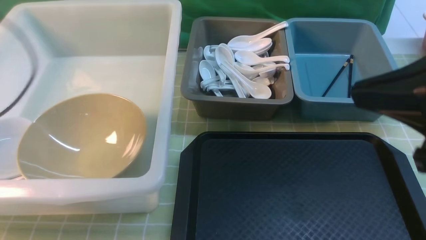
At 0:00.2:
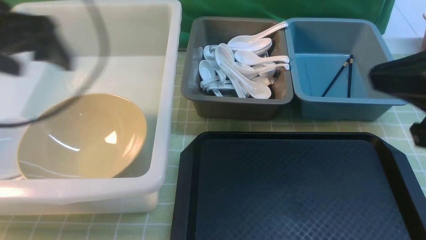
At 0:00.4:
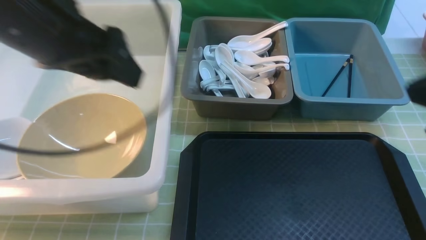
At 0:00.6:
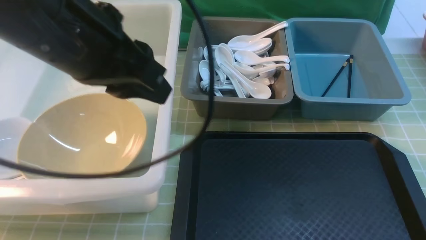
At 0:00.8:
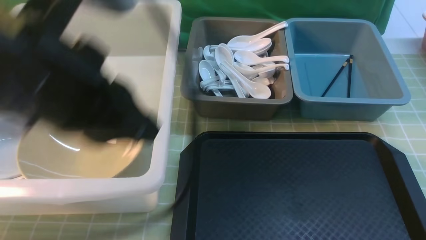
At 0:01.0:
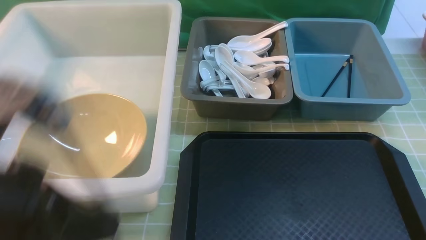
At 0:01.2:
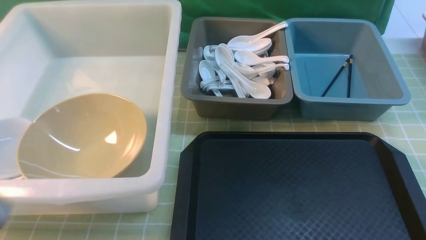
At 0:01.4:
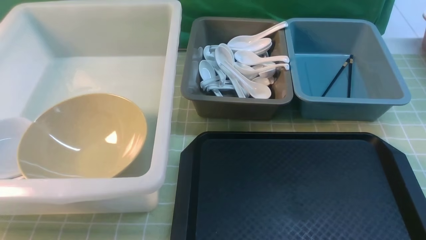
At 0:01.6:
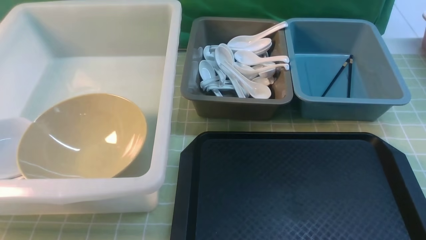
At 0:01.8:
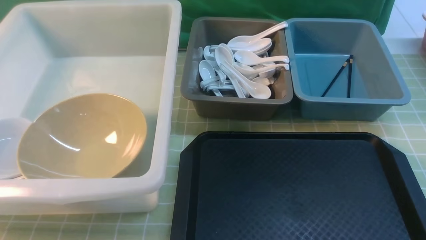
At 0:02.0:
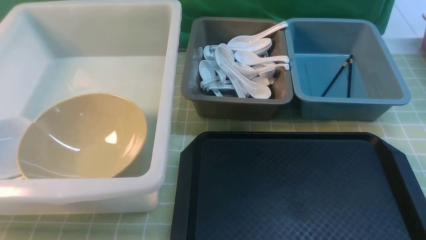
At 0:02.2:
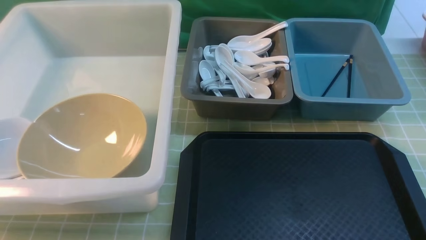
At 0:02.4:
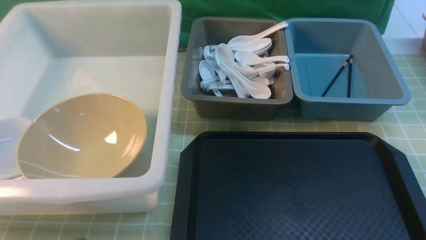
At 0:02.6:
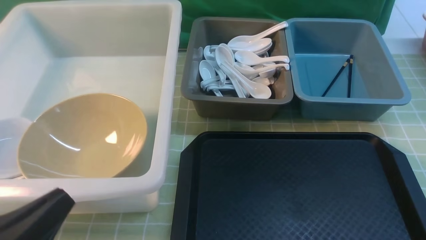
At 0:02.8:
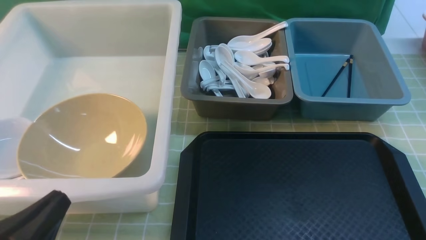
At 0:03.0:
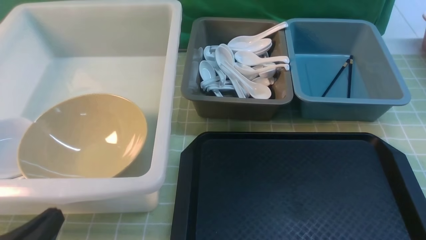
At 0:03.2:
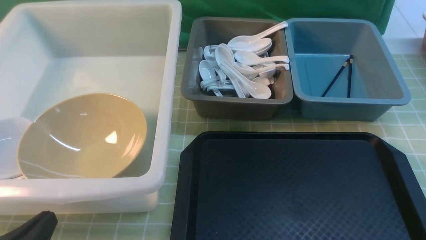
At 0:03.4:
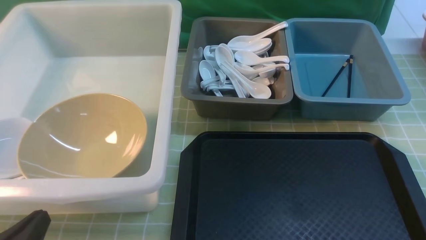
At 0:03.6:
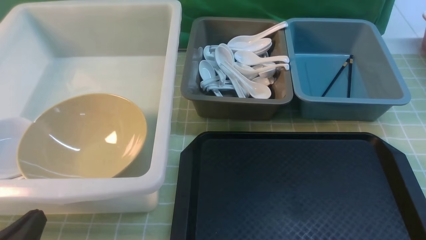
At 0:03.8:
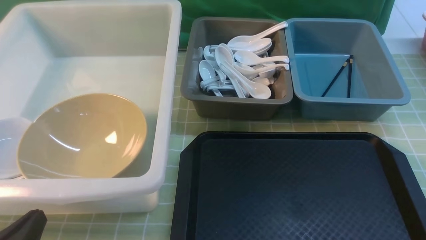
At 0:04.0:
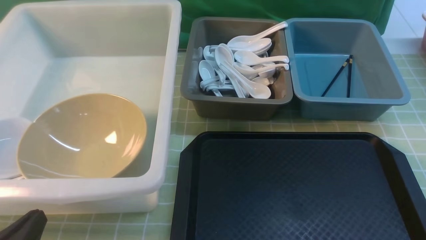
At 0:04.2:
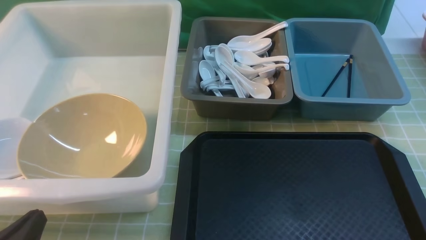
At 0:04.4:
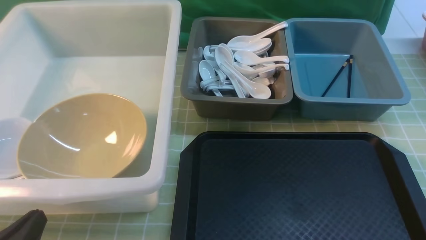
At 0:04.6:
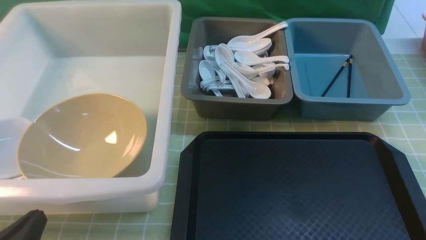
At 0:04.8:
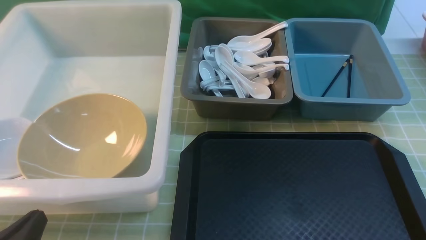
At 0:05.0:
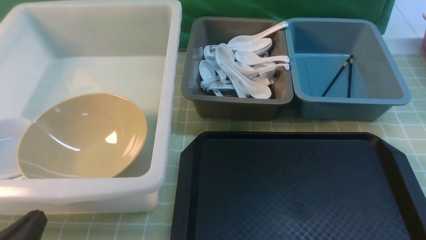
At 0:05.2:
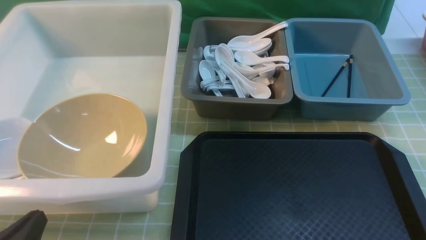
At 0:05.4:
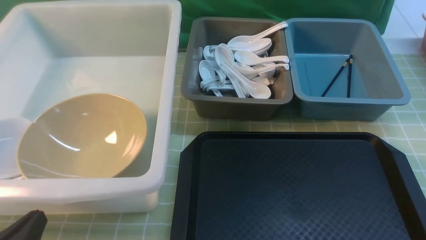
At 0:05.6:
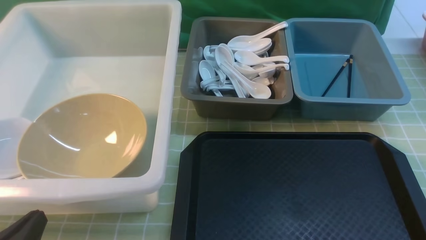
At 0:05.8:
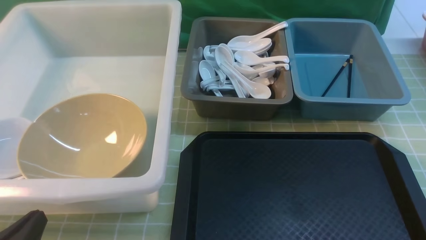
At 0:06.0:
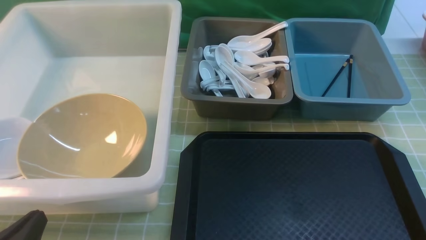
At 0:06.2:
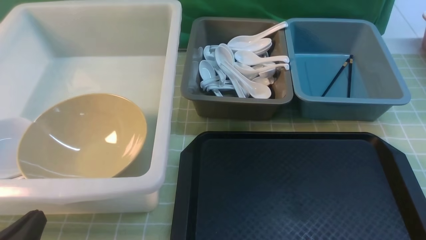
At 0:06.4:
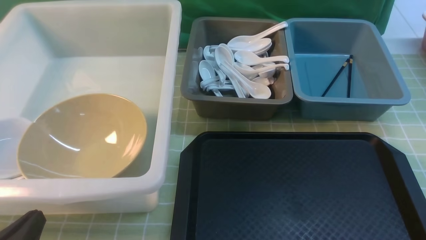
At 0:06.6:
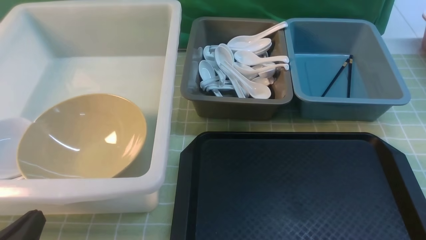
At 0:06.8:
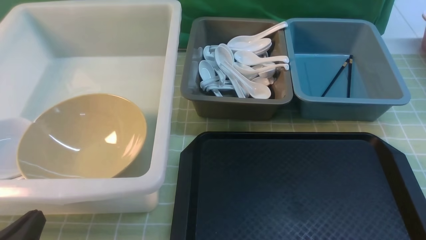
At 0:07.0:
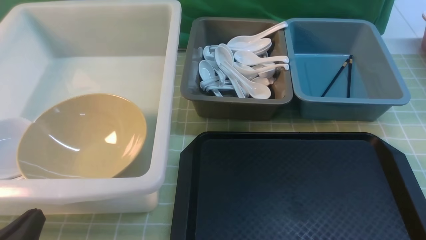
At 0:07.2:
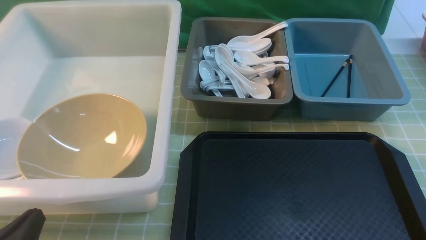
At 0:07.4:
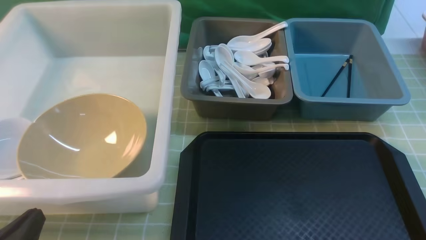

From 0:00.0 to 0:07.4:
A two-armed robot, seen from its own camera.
Task of the whole recording: on green table put chopsticks spoon bowls plates into blue grey white boxes.
From 0:00.0 to 0:01.4: The left gripper goes roughly 30 cm backward, and closes up; the right gripper heads downward, backward and to the right, covering some 20 cm.
From 0:01.4 to 0:03.0: The left gripper goes roughly 10 cm downward.
From 0:06.0 to 0:07.4: The two grippers keep their place.
